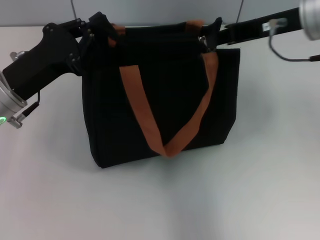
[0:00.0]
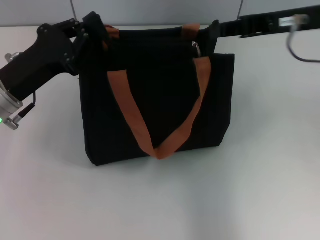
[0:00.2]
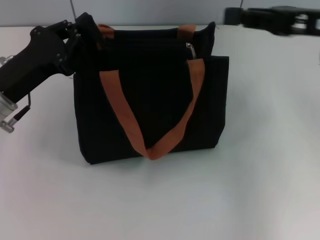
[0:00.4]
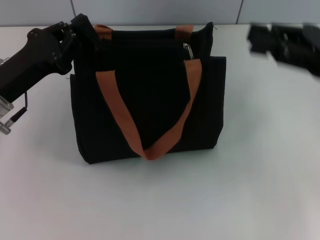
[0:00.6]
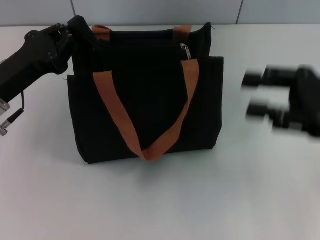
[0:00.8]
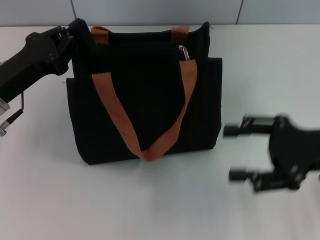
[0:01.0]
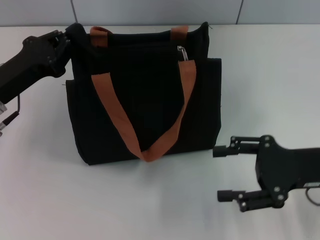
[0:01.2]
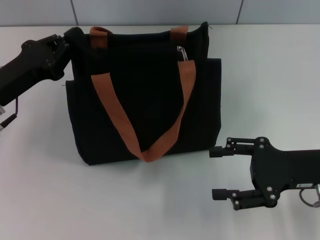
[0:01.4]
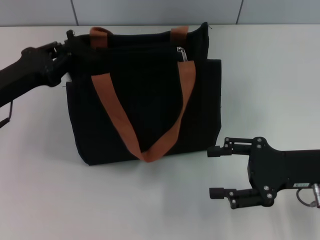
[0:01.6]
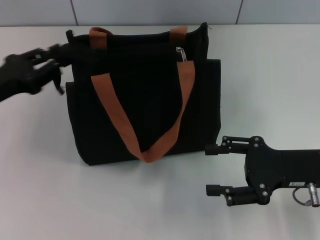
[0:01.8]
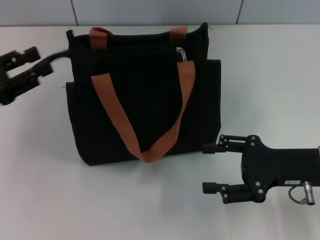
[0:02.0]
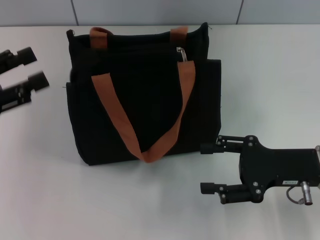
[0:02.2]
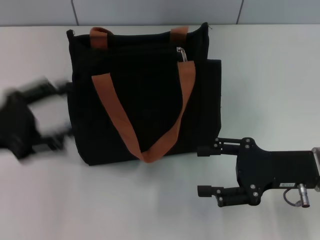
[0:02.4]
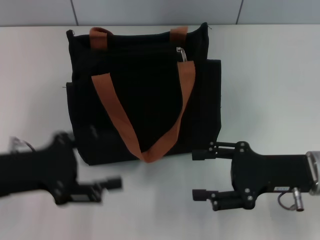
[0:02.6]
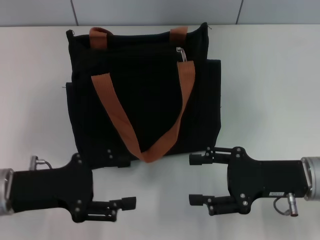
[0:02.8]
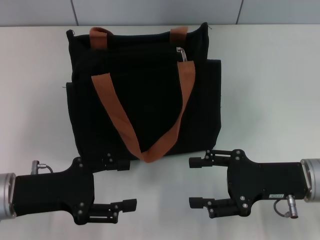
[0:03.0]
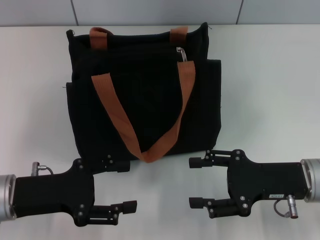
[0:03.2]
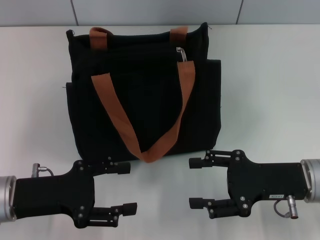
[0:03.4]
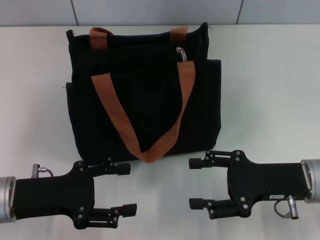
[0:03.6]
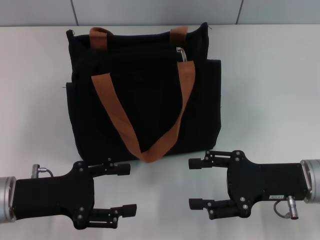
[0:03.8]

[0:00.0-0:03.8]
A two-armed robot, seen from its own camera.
Step, 0:00.4 to 0:02.2: Grab the zipper with your left hand.
0:00.0 to 0:01.2: The right gripper is displaced downward, backward and to the right by roughly 20 cm, and opens its fingers.
0:01.2 to 0:02.6: The left gripper is displaced backward by some 5 cm, and opens up.
0:02.6 to 0:03.8: There are only small adjustments of the grippers.
